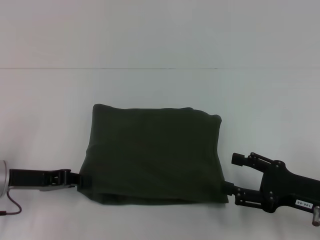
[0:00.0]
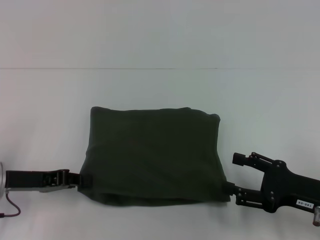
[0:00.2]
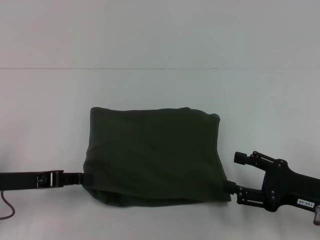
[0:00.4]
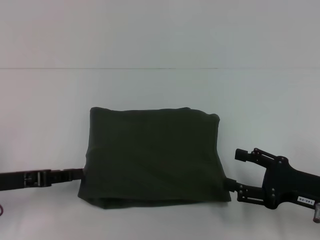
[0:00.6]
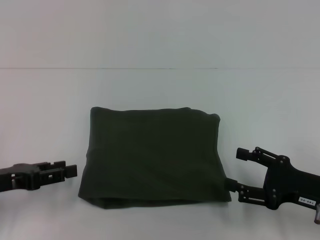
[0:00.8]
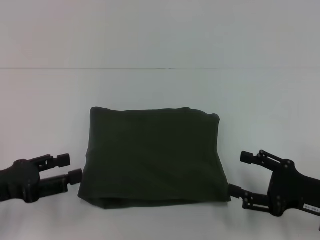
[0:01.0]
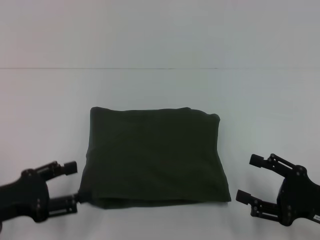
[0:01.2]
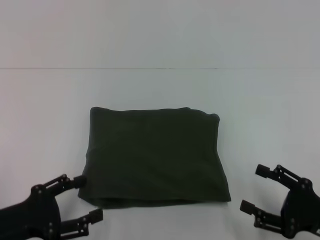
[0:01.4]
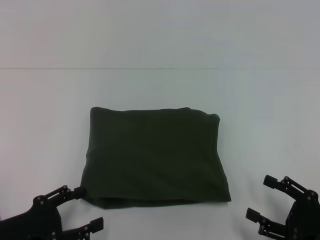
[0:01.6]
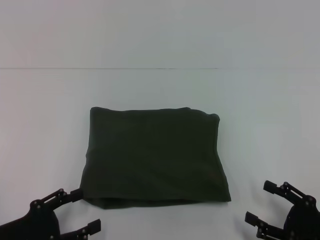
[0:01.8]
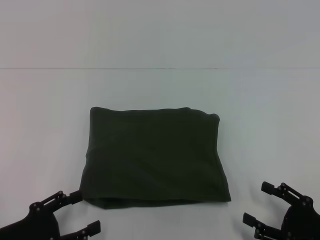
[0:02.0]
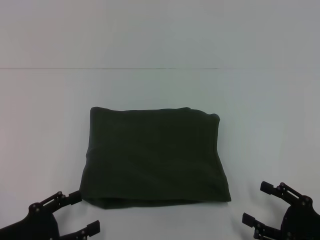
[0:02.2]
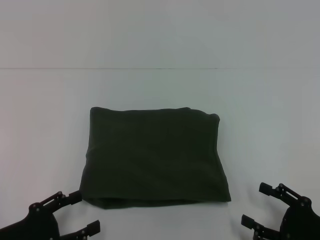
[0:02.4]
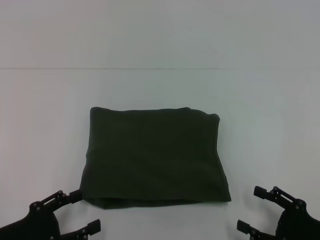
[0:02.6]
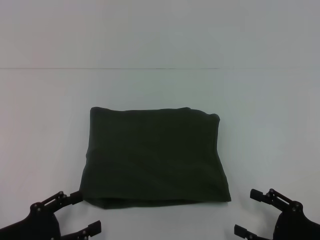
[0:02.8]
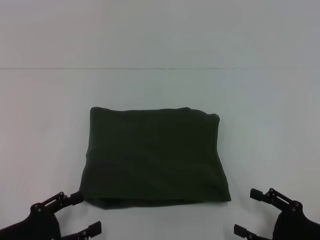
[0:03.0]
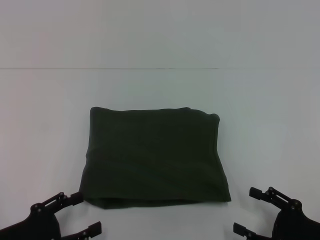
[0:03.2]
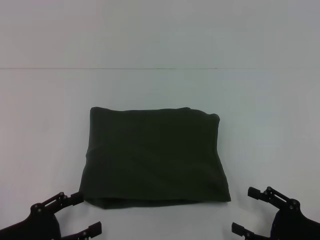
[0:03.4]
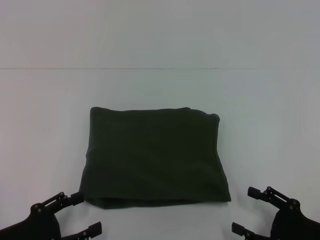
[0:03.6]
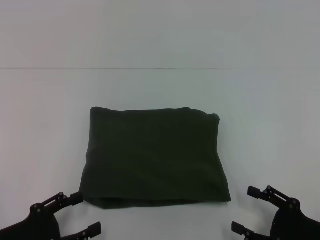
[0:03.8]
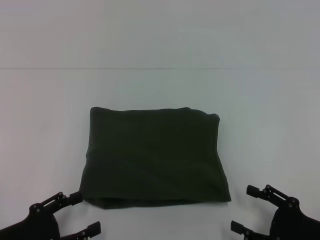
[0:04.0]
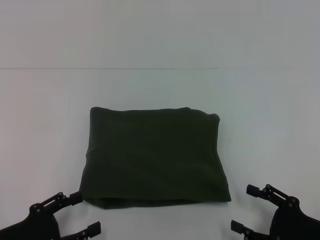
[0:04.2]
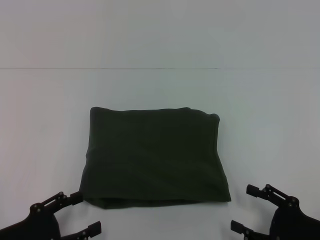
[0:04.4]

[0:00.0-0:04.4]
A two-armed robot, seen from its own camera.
0:00.0 to 0:01.4: The left gripper moves backward, roughly 10 cm, and opens; the right gripper moves roughly 5 cm.
0:01.4 to 0:03.0: The grippers make only small movements.
0:03.0 to 0:04.4: Both grippers stay about where they are.

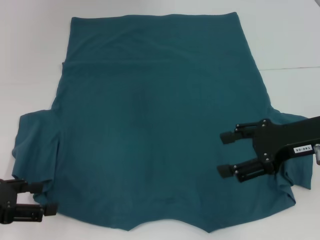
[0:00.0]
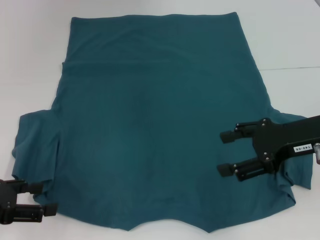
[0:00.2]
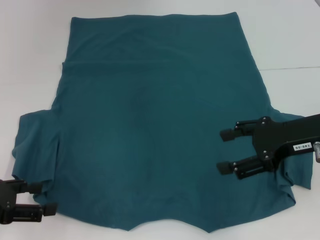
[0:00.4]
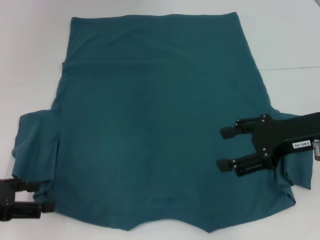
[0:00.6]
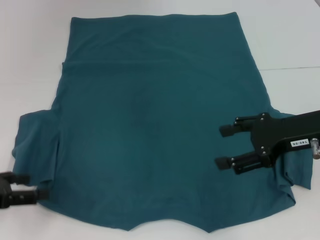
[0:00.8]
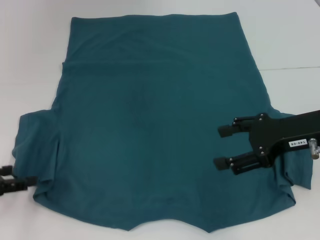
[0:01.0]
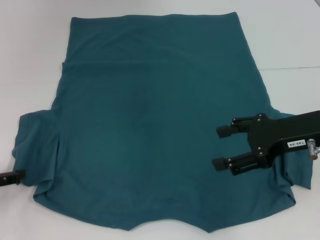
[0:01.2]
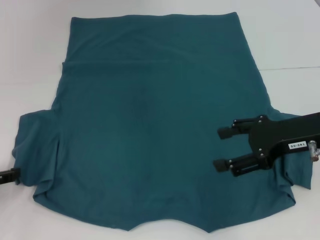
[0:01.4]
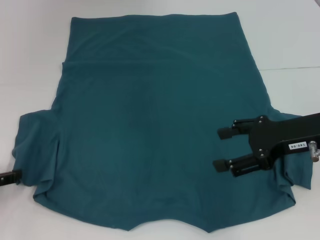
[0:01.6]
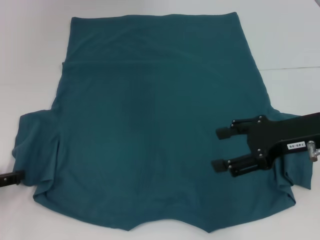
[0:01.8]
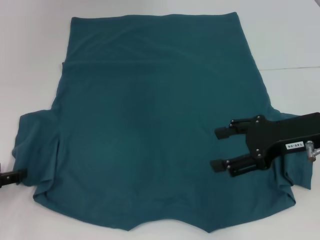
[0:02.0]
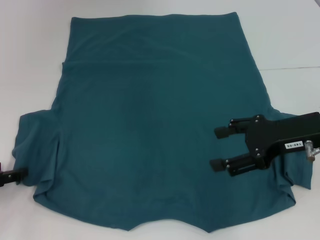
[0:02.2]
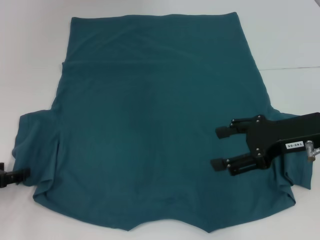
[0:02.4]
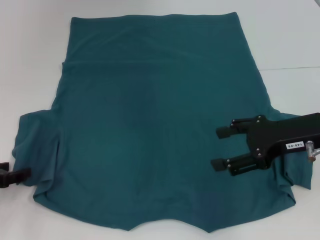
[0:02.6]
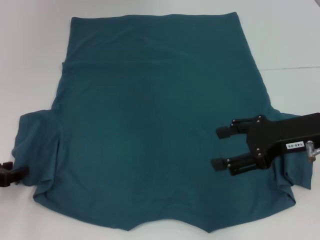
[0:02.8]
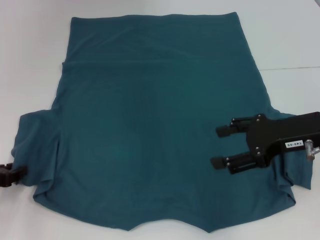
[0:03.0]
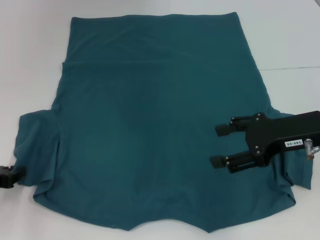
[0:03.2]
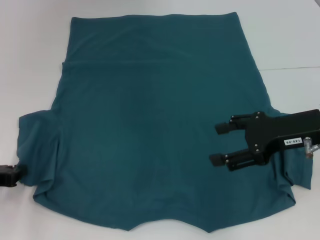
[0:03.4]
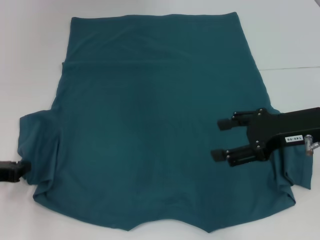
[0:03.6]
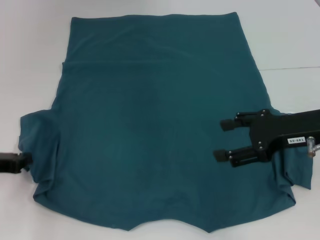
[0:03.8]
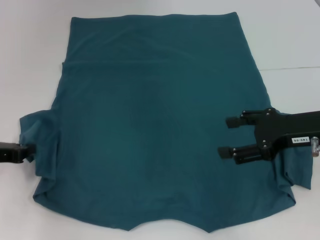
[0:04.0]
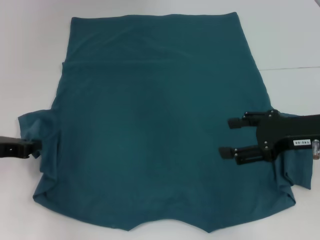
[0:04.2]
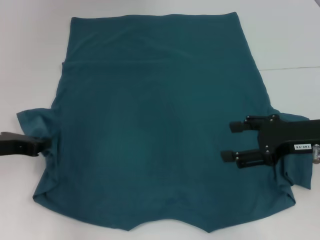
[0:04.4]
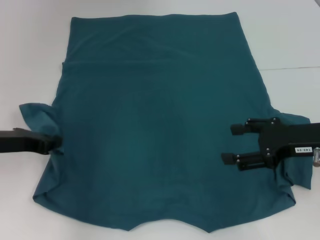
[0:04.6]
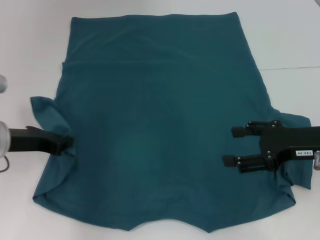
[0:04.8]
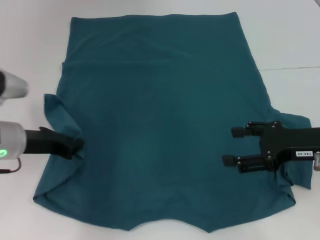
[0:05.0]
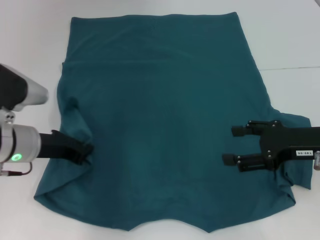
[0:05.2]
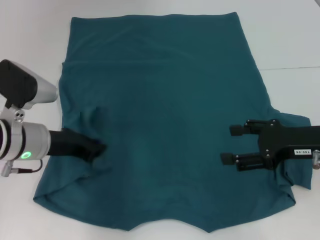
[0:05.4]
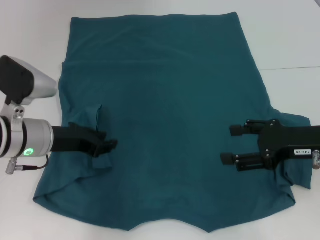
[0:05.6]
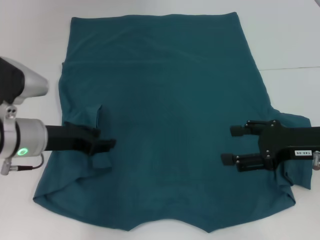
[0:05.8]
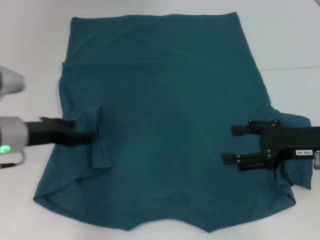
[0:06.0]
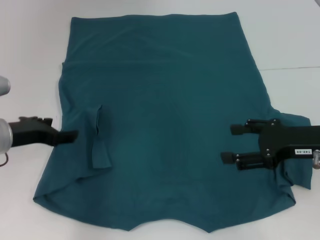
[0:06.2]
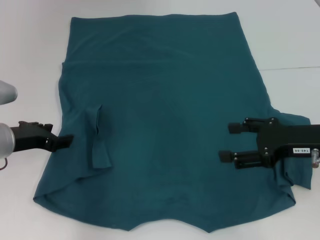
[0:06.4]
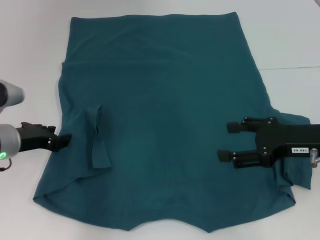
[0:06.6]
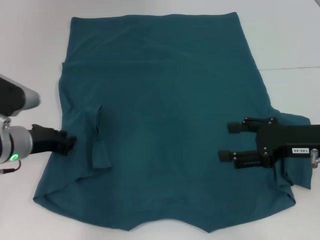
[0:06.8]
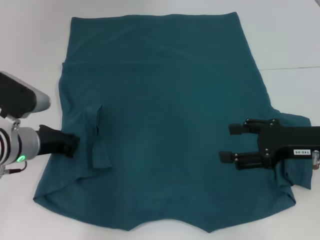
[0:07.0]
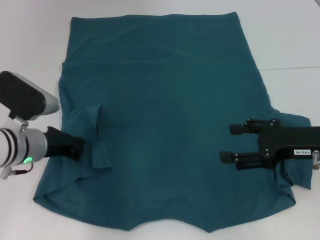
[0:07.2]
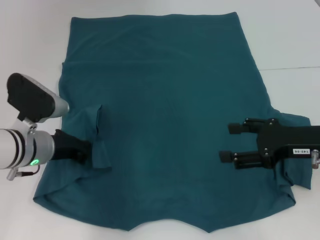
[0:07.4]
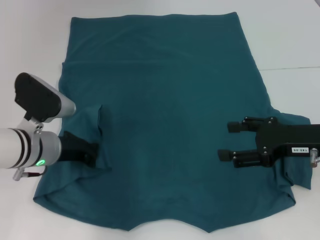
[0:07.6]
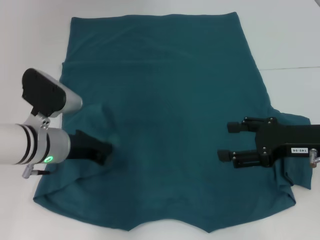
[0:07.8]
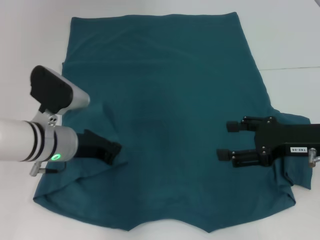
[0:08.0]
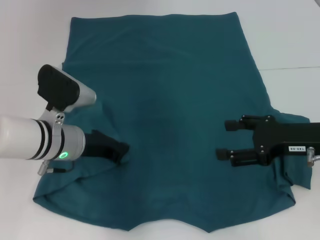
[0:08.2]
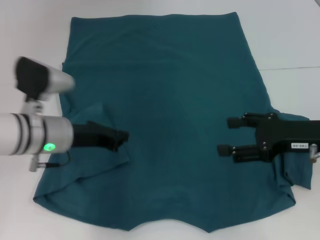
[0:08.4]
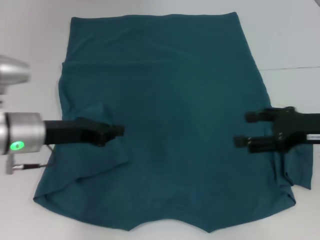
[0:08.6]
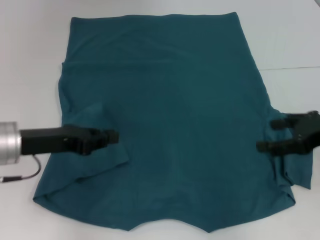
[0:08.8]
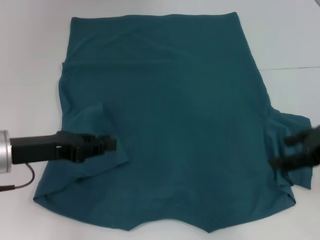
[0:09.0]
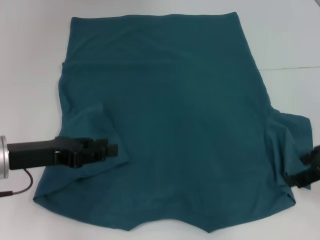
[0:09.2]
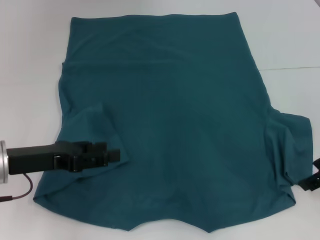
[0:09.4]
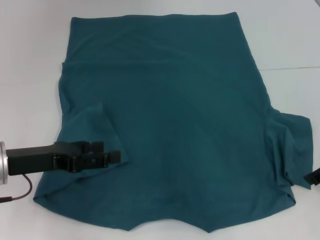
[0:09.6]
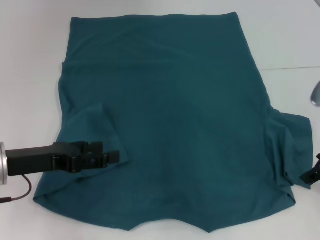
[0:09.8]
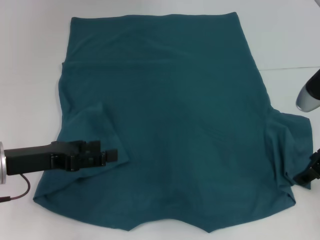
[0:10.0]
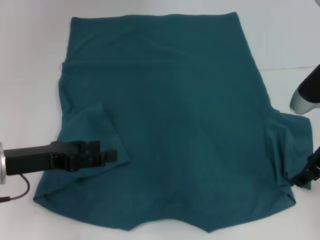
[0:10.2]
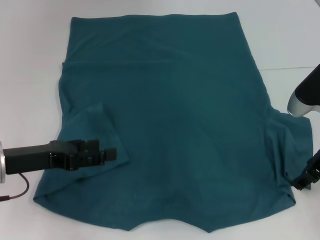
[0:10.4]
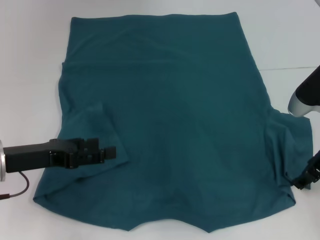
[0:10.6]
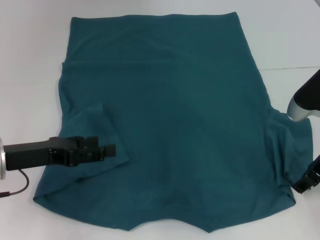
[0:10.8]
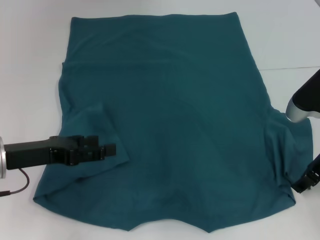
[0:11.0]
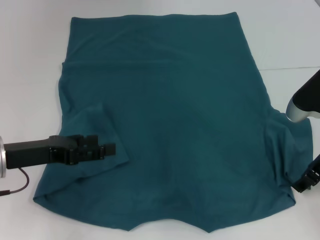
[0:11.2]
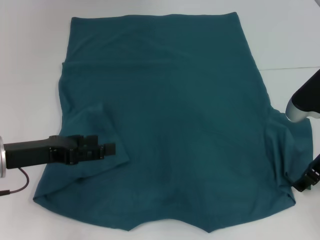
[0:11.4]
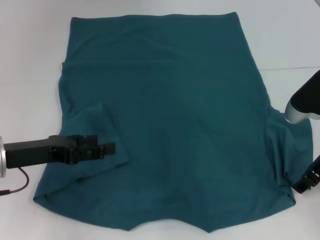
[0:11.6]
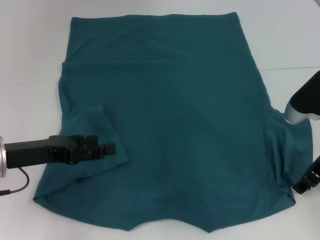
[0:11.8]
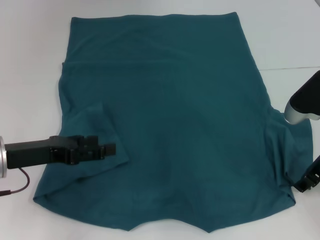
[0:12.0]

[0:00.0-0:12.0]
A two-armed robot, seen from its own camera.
Step, 0:00.0 to 0:05.8: Fold the bottom left sleeve with your left hand.
0:00.0 to 0:01.6: The left gripper moves about 5 cm.
0:03.0 to 0:04.4: The left gripper changes place by about 10 cm, and closes up.
0:04.4 to 0:06.0: The left gripper goes approximately 5 cm to the right, and opens.
0:06.0 to 0:07.6: The left gripper moves about 5 cm, and closes up.
0:07.6 to 0:09.0: The right gripper changes place by about 5 cm, while the left gripper travels to the left and upward by about 5 cm.
0:09.0 to 0:10.4: The right gripper ends up roughly 5 cm from where it was; the left gripper opens up.
0:10.4 to 0:12.0: The grippers stay close to where they were, moving slightly.

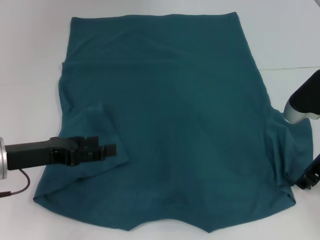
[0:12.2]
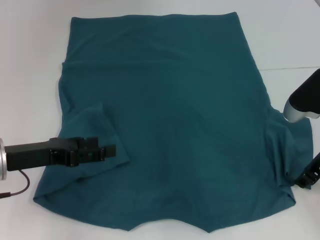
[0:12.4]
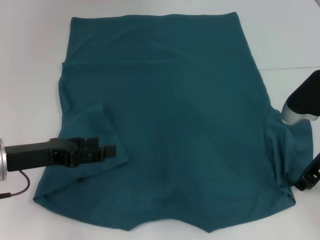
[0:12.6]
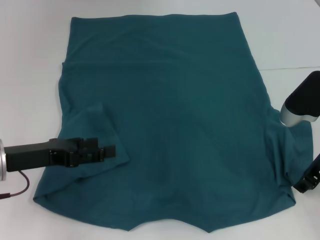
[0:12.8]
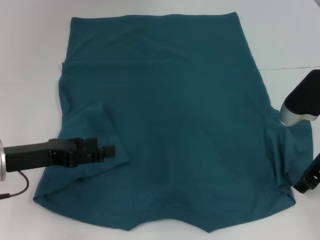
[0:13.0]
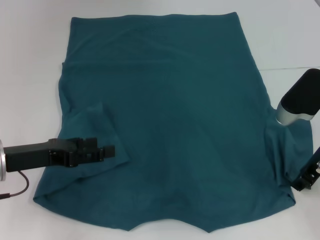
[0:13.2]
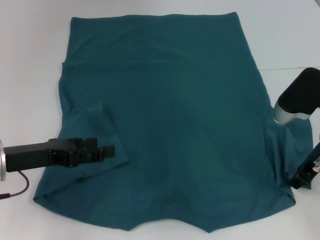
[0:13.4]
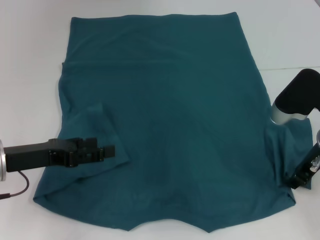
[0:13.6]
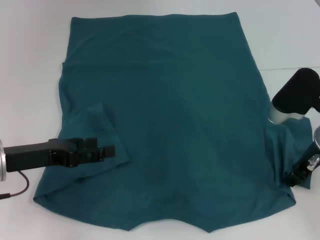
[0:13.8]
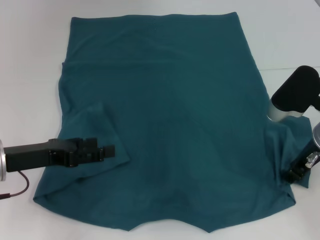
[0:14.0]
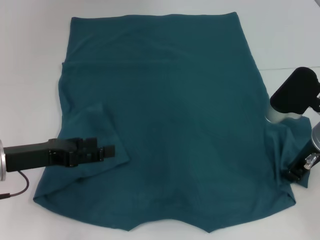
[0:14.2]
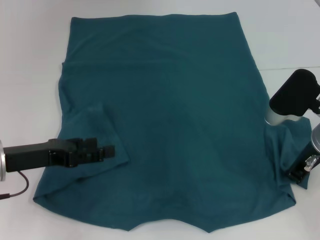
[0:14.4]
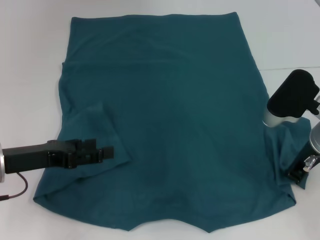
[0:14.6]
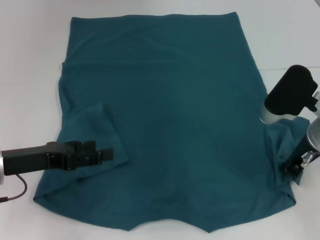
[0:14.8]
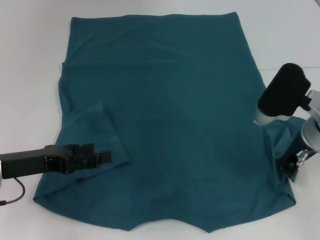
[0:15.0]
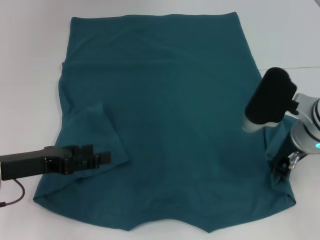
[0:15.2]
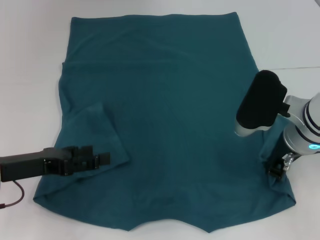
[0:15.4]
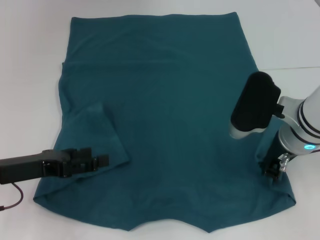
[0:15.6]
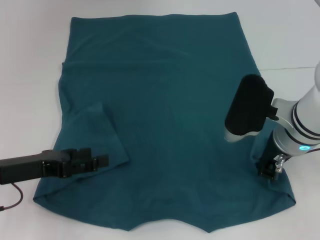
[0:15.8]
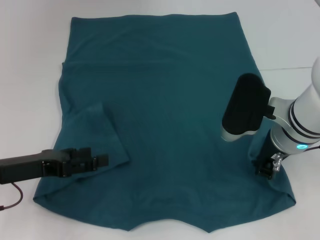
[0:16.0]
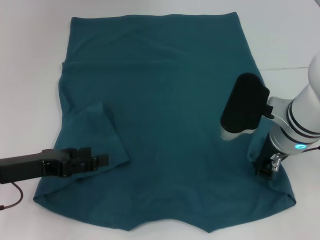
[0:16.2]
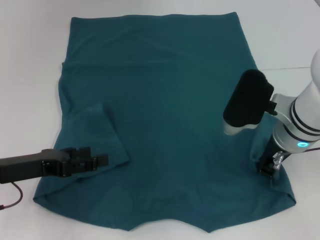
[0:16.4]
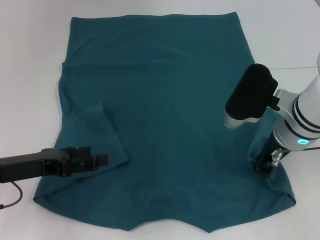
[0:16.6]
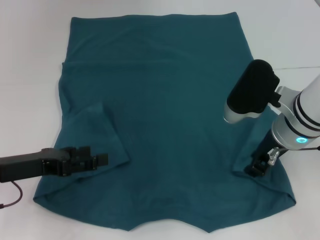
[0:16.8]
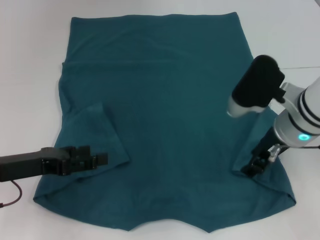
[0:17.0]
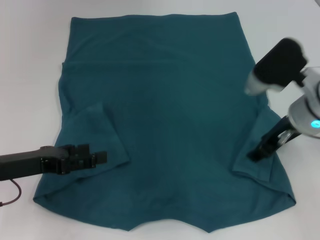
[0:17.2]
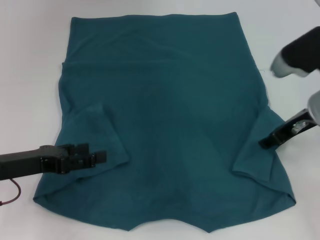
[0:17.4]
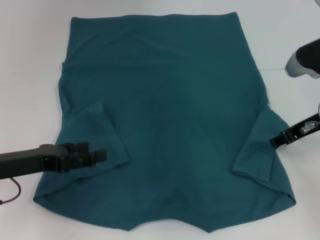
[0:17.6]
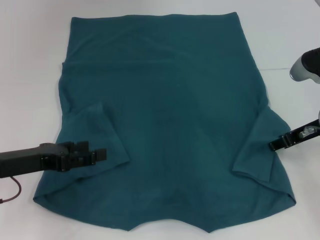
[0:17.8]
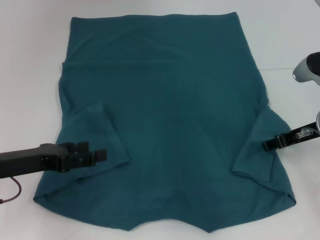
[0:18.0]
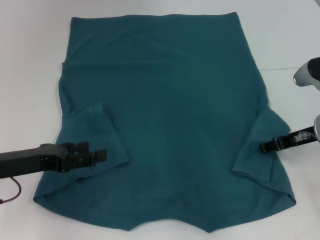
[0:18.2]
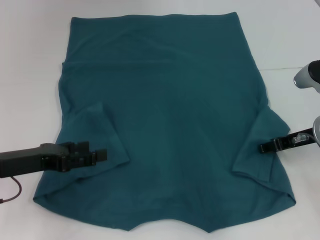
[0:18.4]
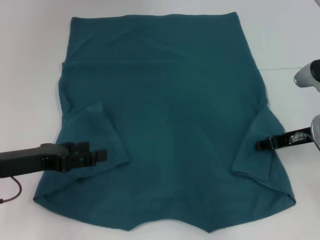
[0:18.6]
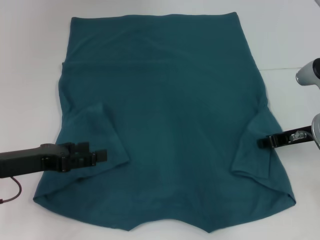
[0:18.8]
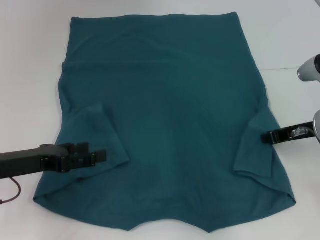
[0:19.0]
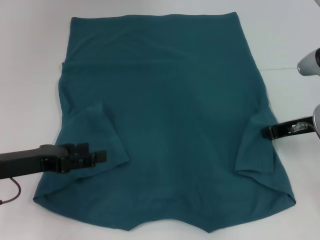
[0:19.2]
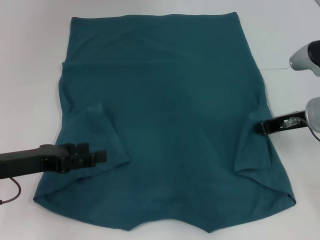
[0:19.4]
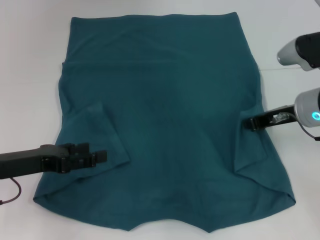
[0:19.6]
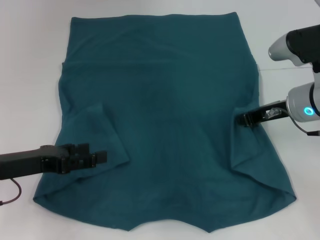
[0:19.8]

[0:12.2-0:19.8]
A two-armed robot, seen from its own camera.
0:12.2 to 0:13.8: There are only small adjustments of the grippers.
0:13.8 to 0:15.2: The right gripper closes.
0:15.2 to 0:16.8: The grippers stay close to where they were, moving slightly.
0:16.8 to 0:18.2: The right gripper heads to the right, covering approximately 10 cm, and opens up.
0:18.2 to 0:19.8: The right gripper shifts by about 5 cm, and closes up.
